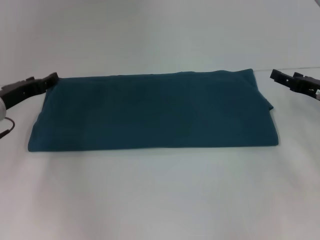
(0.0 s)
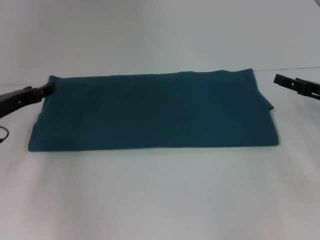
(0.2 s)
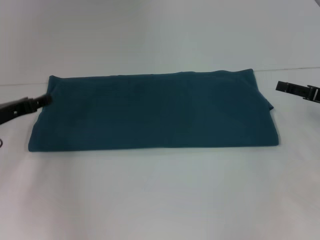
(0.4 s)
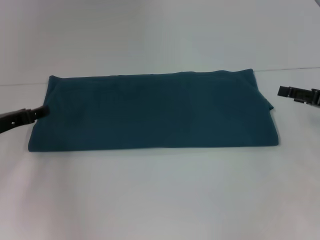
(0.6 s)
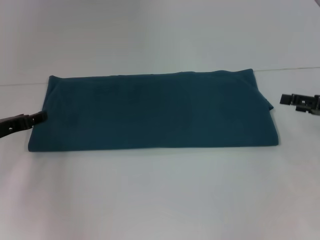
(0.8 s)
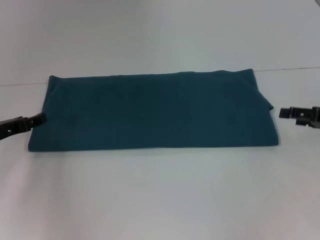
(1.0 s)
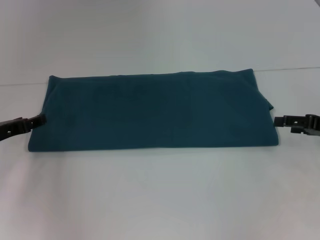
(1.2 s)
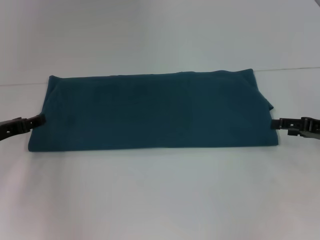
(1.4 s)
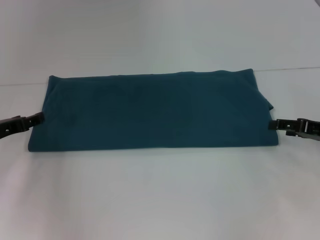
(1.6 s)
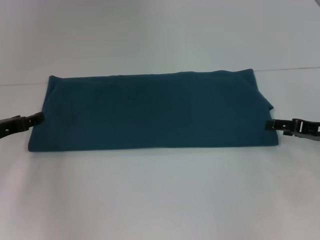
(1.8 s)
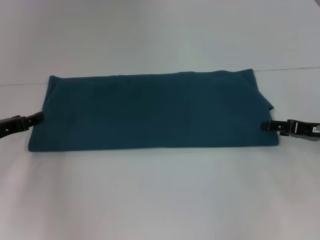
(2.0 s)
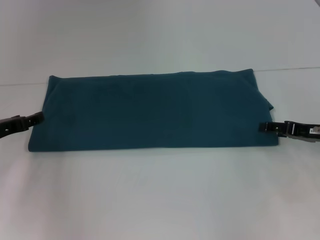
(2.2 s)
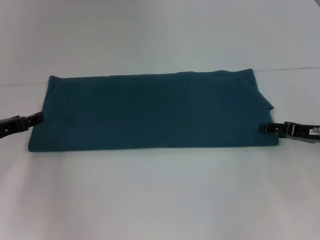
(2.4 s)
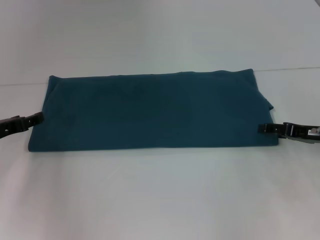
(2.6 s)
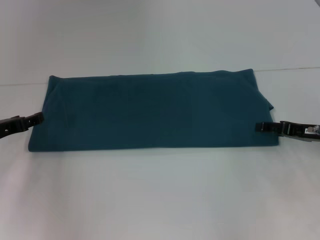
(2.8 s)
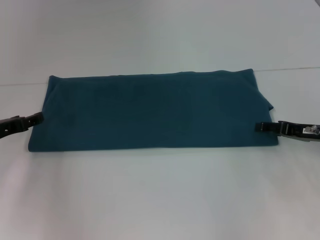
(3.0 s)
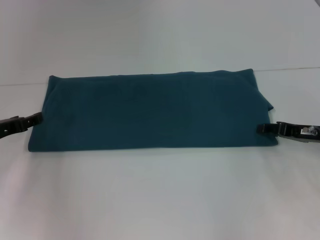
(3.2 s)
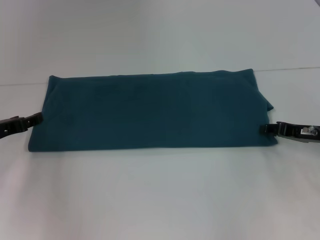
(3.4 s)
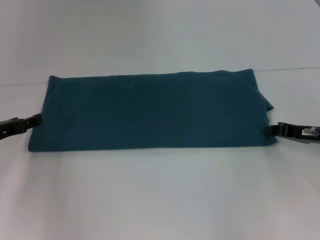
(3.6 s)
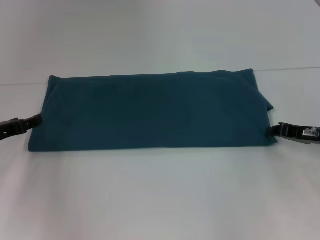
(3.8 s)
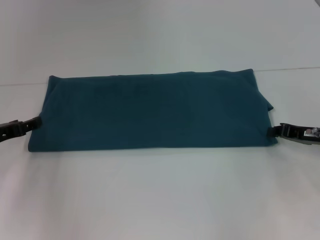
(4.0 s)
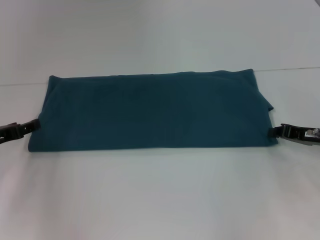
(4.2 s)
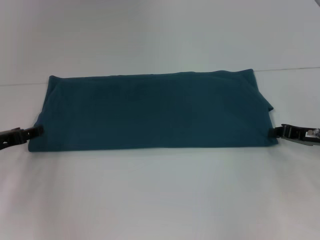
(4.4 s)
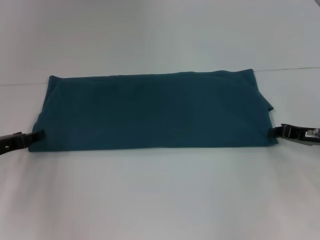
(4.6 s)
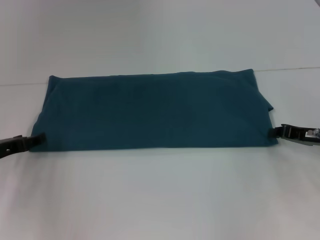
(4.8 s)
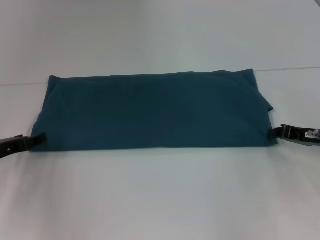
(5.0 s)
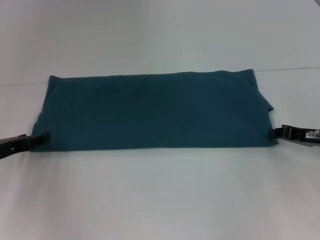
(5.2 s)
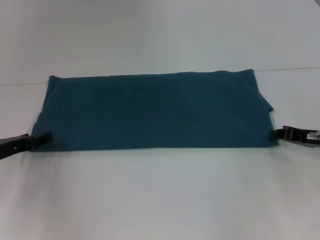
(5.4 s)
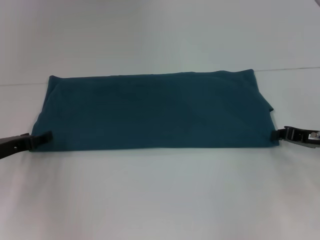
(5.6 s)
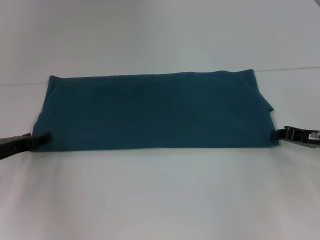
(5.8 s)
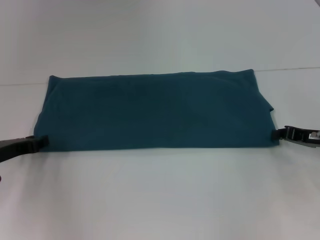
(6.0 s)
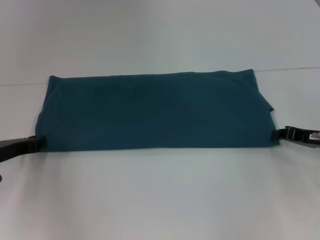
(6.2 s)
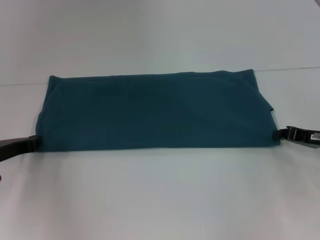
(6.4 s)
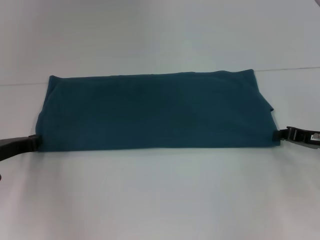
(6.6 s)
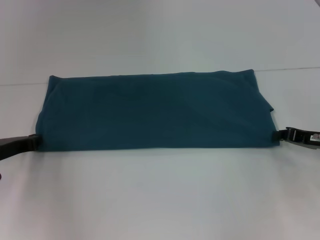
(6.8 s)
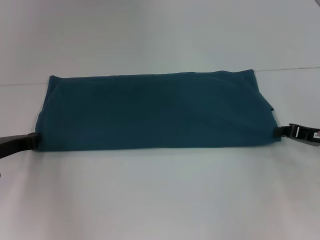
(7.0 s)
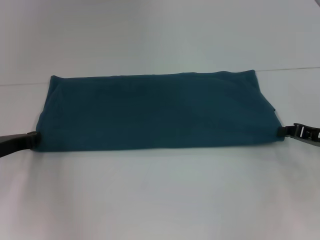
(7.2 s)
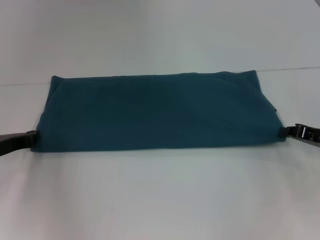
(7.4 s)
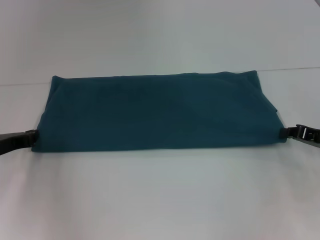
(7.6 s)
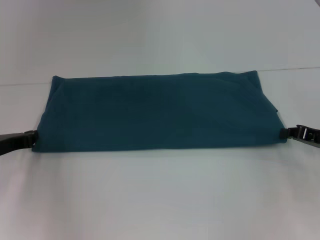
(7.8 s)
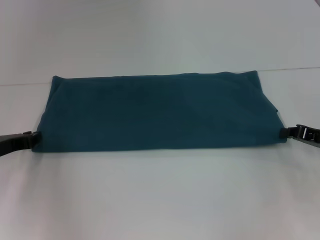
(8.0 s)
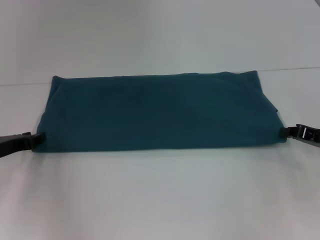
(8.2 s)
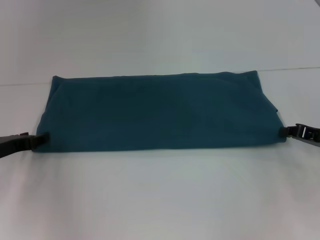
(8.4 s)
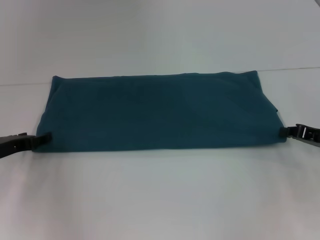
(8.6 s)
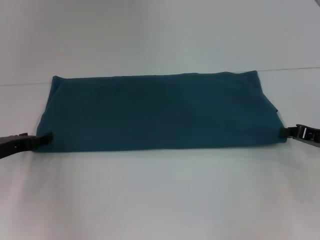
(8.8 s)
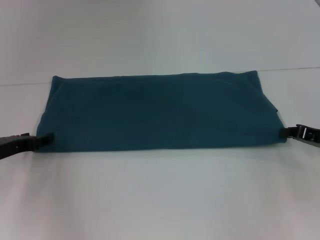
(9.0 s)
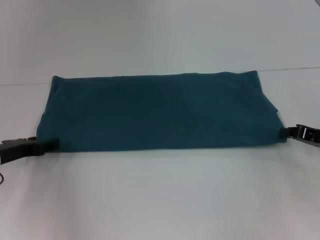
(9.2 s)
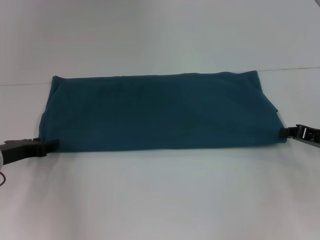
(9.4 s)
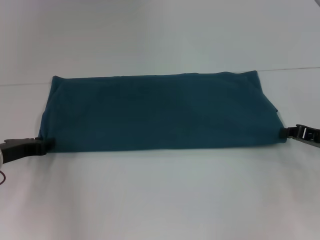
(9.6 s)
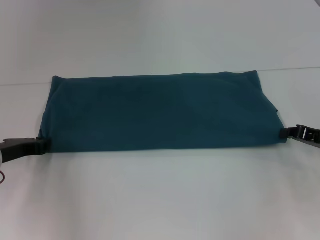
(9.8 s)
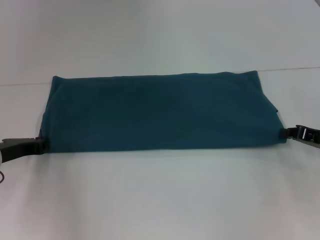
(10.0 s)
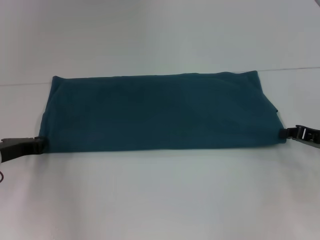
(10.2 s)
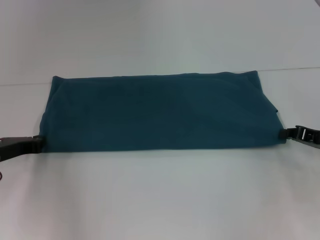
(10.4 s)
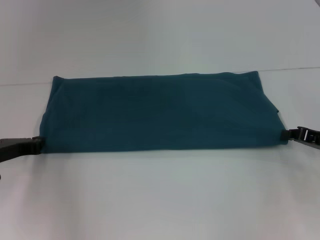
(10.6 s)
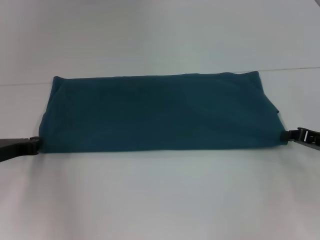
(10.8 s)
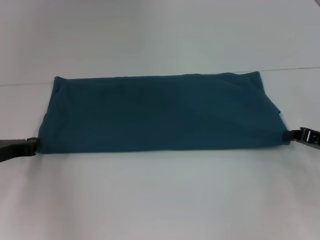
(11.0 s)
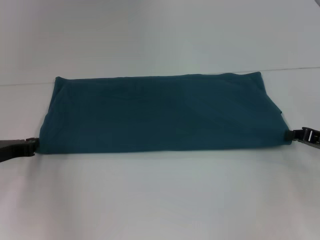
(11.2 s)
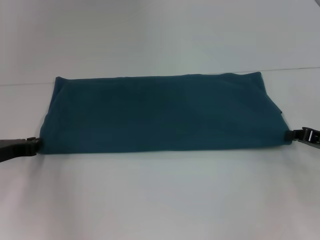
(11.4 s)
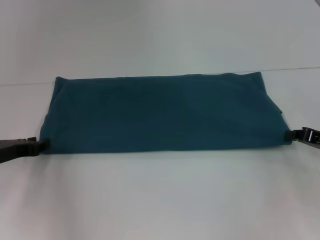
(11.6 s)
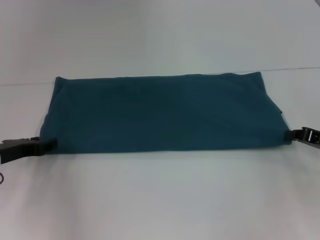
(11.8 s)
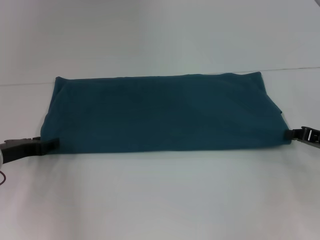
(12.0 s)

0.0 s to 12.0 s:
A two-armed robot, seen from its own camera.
0.0 to 1.6 s: The left gripper ends up approximately 5 cm from where it was.
1.6 to 3.0 s: The grippers stay close to where they were, moving slightly.
3.0 to 4.4 s: The right gripper closes up.
4.4 to 6.0 s: The grippers make only small movements.
6.0 to 7.6 s: The left gripper closes up.
7.6 to 9.0 s: The left gripper opens up.
10.4 to 12.0 s: The left gripper opens.

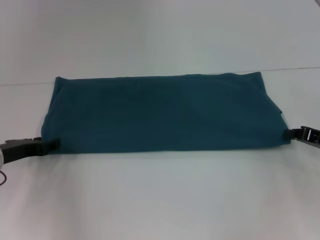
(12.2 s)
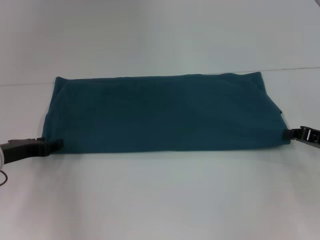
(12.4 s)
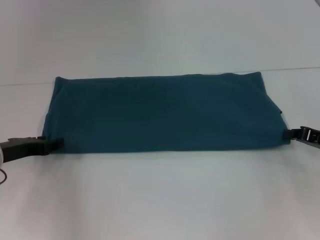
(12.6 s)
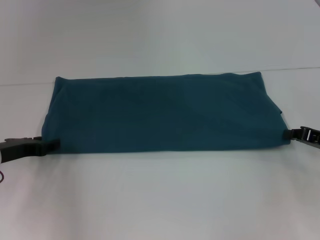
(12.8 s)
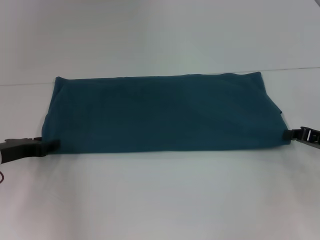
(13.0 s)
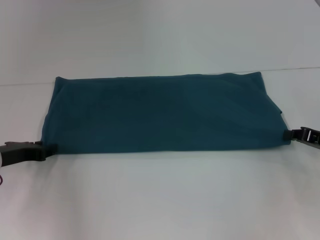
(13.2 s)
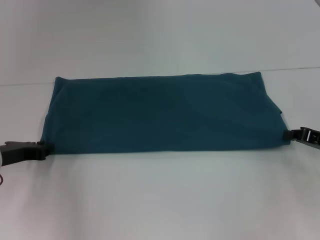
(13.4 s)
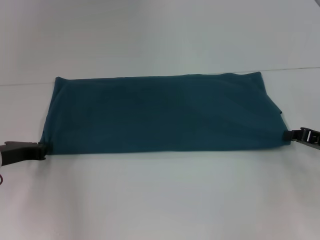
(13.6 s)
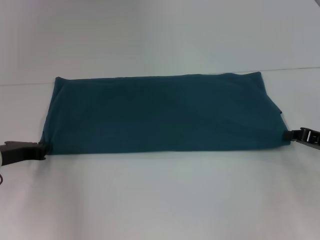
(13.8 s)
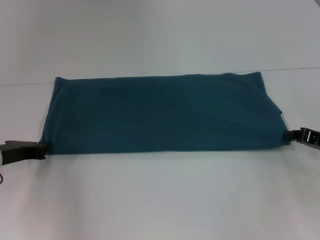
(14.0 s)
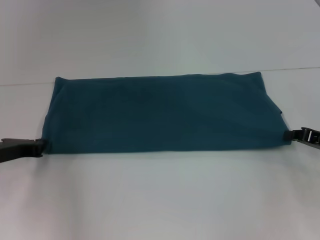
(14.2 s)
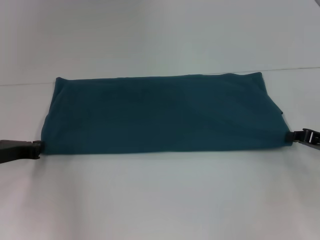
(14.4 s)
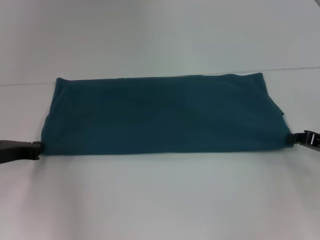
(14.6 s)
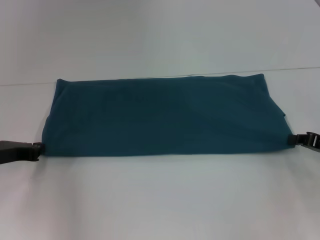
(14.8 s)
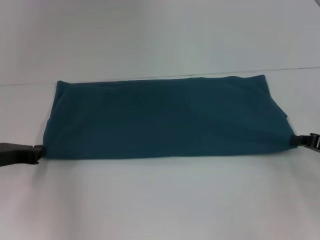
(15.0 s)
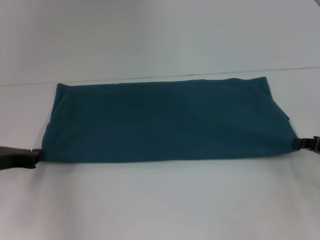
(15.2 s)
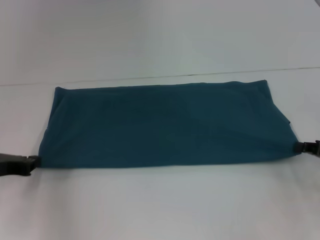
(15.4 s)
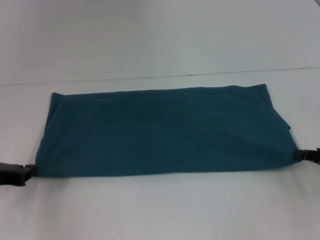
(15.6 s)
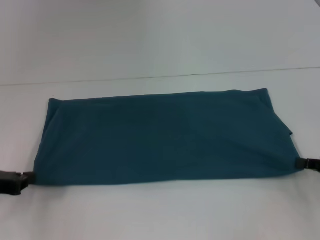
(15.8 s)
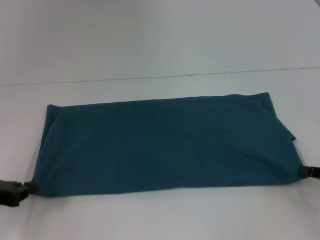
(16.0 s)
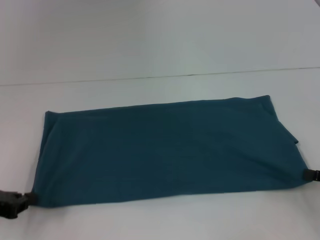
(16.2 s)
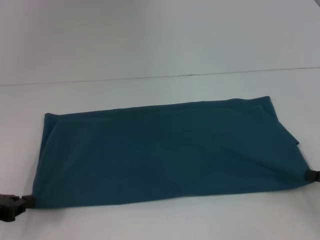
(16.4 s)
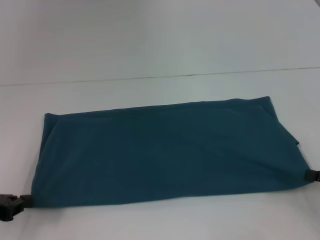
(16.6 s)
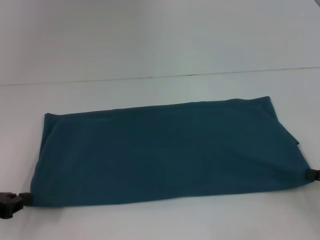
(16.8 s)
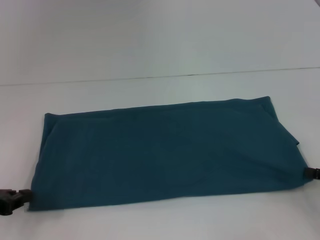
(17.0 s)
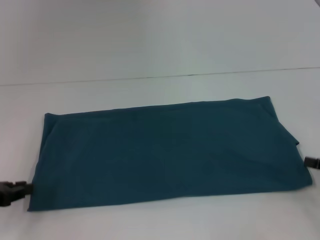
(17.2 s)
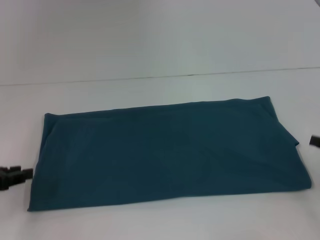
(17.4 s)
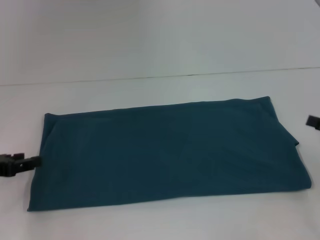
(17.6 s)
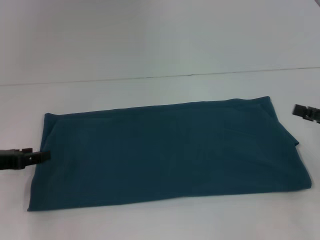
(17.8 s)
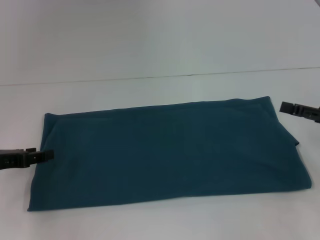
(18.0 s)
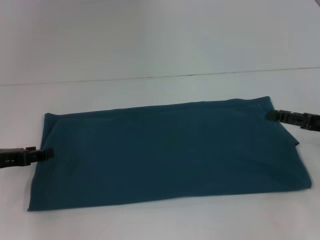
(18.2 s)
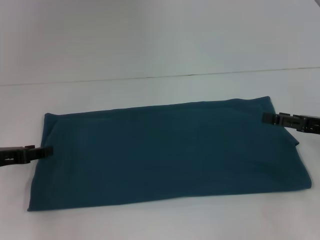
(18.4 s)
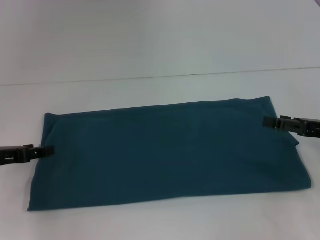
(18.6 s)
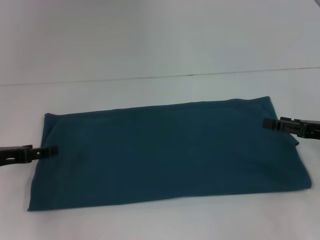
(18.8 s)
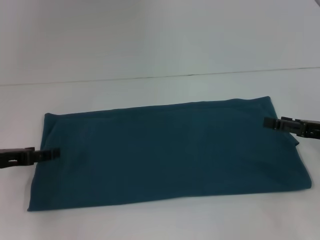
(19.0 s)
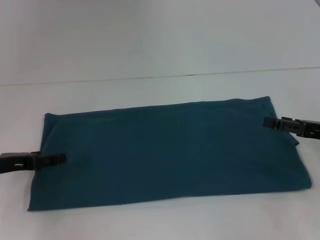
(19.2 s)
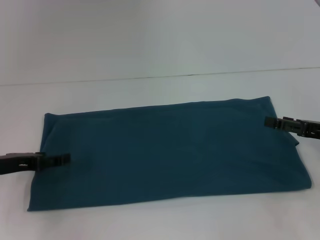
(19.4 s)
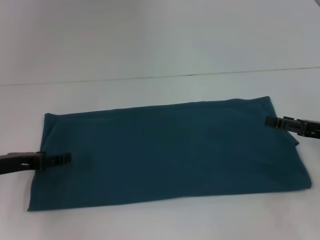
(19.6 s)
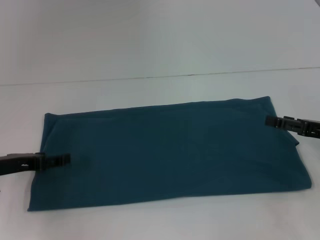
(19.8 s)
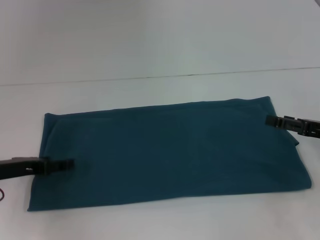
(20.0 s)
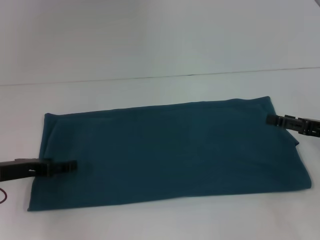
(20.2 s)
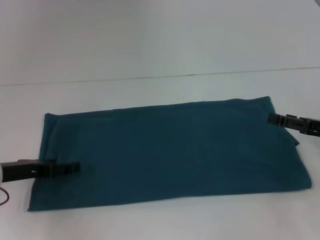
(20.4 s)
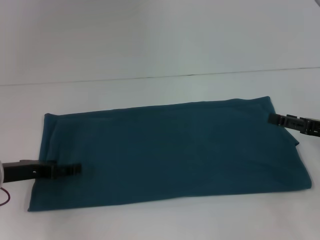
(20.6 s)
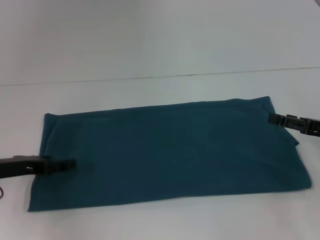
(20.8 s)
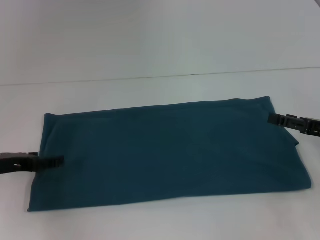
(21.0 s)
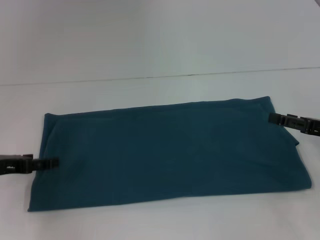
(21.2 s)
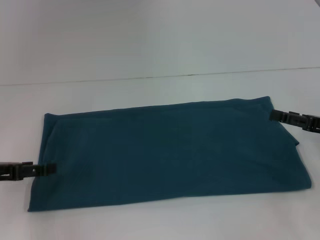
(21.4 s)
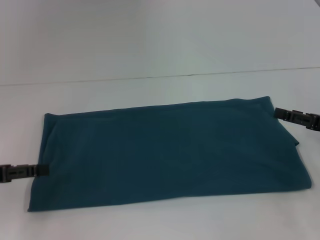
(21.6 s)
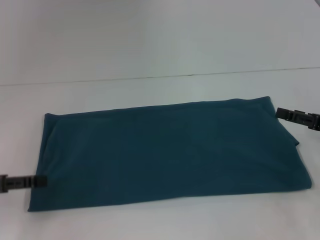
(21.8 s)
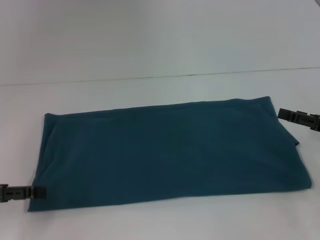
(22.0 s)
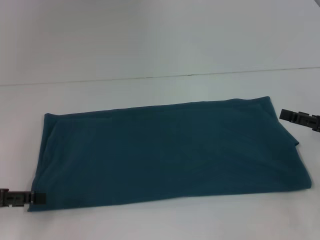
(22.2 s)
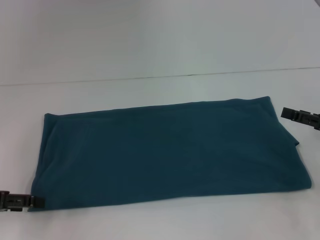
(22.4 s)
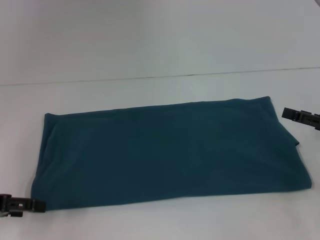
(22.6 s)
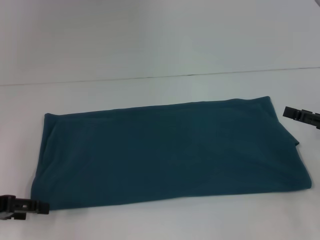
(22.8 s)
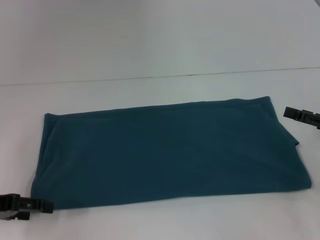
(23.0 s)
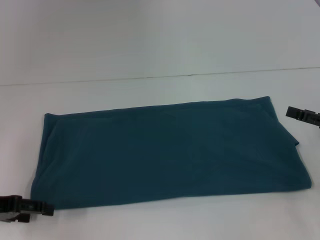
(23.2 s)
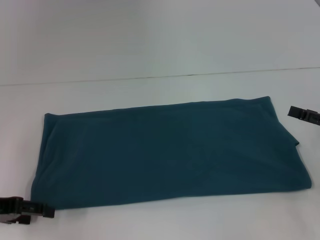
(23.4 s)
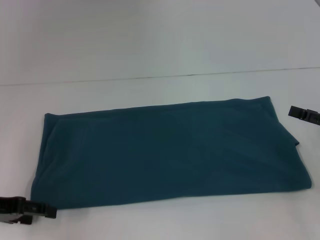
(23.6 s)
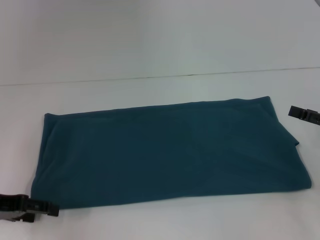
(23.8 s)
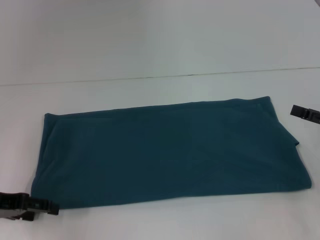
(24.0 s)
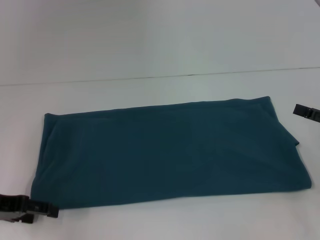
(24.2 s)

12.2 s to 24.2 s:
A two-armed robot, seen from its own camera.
Step, 12.2 to 17.2 s: Pull the clothes with your left hand.
Step, 12.2 to 17.2 s: Pull the clothes with your right hand.
12.2 to 13.8 s: The left gripper closes up.
13.8 to 15.2 s: The grippers move only a little.
15.2 to 16.6 s: Both grippers travel together backward, roughly 5 cm.
16.6 to 18.2 s: The grippers both shift forward by approximately 5 cm. The right gripper opens its fingers; the left gripper opens.
18.2 to 19.8 s: The grippers stay close to where they were, moving slightly.
22.6 to 24.2 s: The grippers make only small movements.
